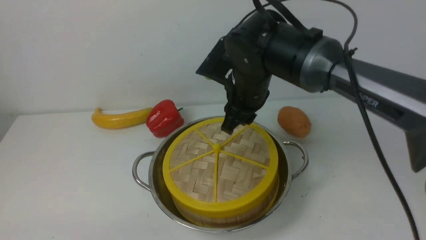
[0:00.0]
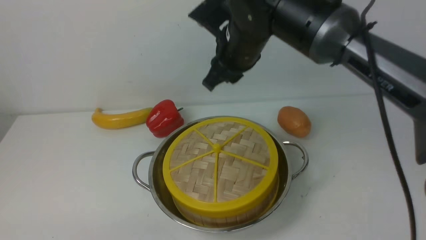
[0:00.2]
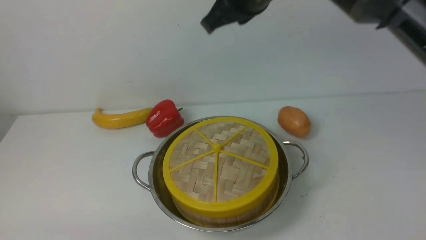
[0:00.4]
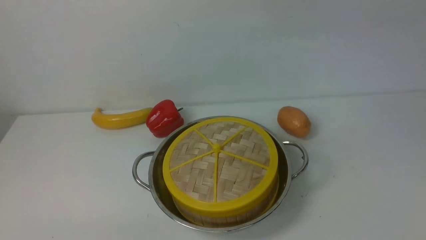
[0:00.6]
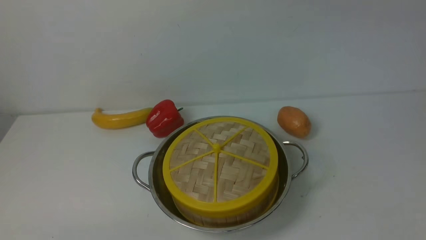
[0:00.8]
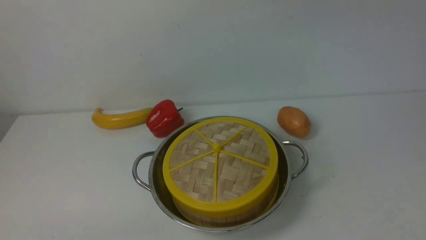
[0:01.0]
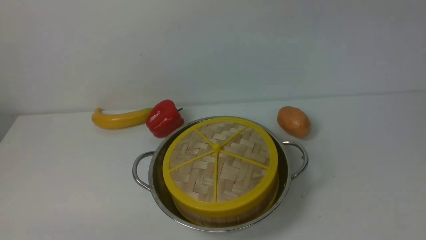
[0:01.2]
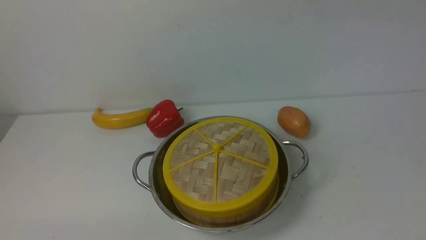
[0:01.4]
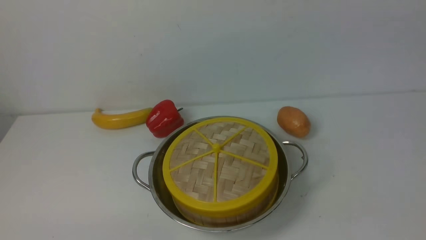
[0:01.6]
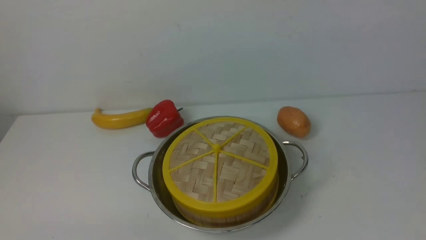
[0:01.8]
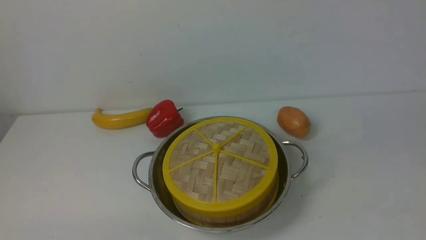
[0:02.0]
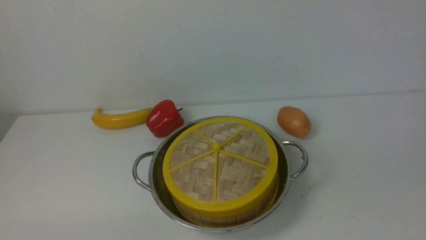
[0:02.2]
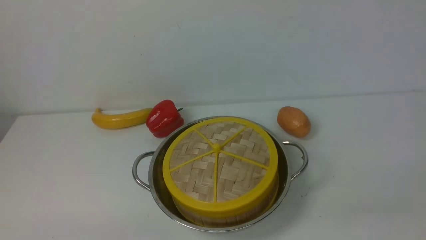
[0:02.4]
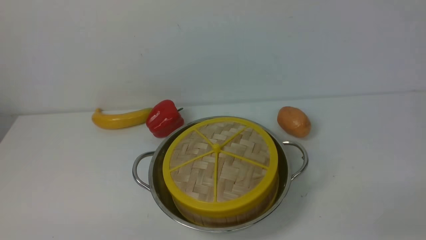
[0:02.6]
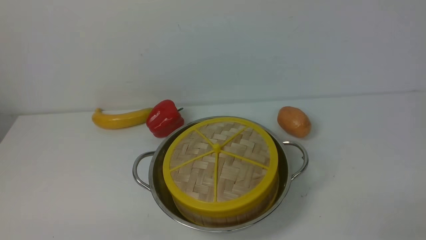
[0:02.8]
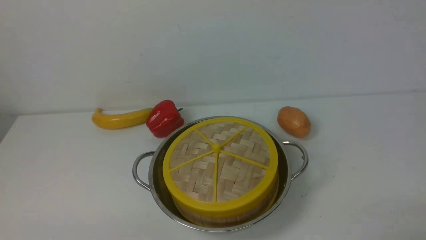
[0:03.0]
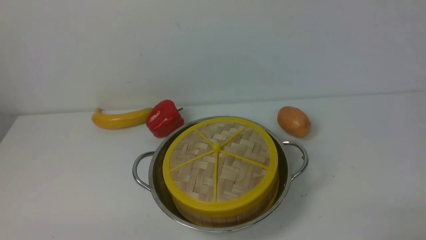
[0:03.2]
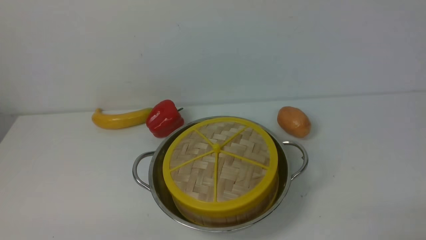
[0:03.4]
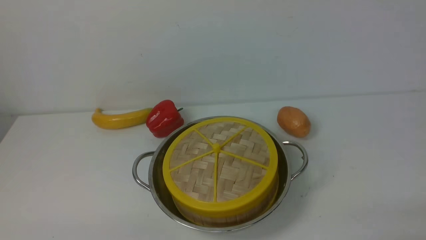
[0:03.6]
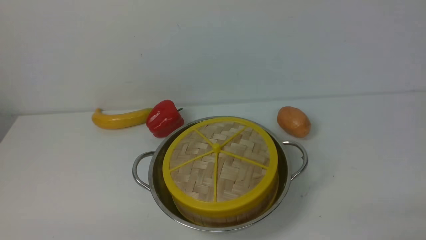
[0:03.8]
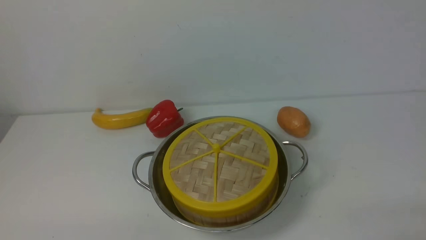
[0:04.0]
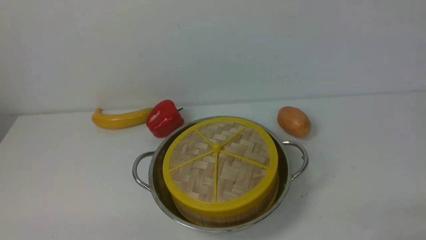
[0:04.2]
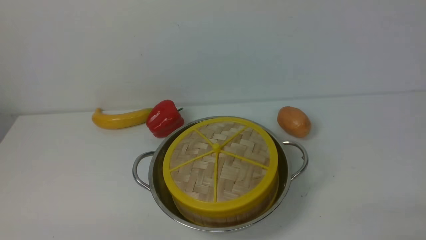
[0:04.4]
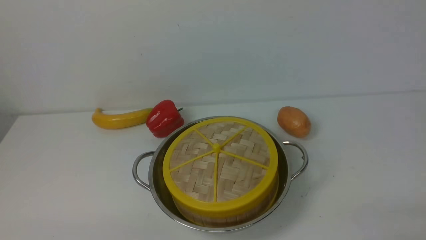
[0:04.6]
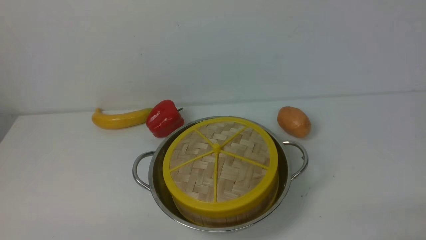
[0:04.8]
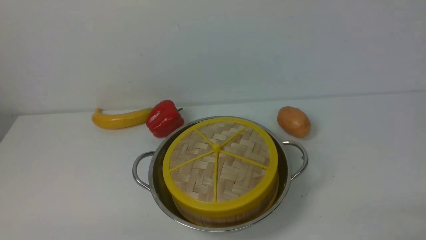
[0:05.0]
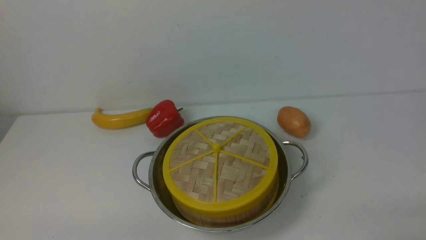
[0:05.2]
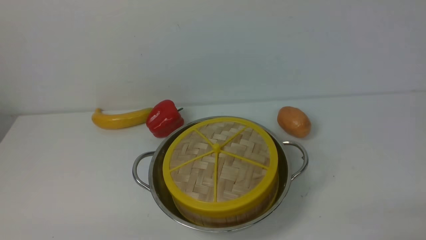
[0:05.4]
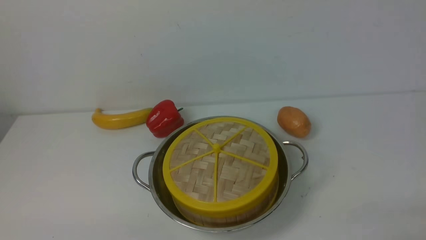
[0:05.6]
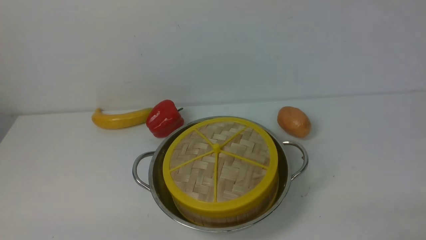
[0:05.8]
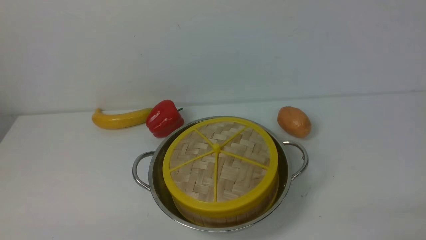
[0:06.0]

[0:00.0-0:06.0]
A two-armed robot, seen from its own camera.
Task of the whole recording: place the steamer in the pot on the white table, and put the lid on the steamer.
0:00.0 to 0:01.6: The right gripper shifts approximately 35 cm upward, backward and to the right, and closes its fingers.
0:04.4 to 0:06.0: The two grippers keep their place.
